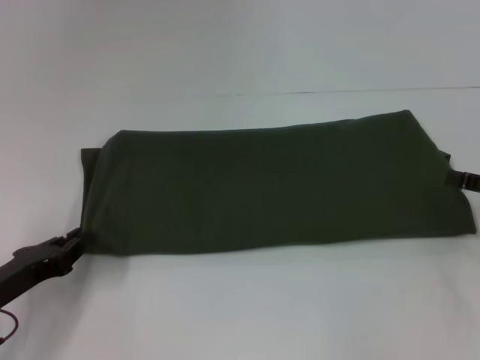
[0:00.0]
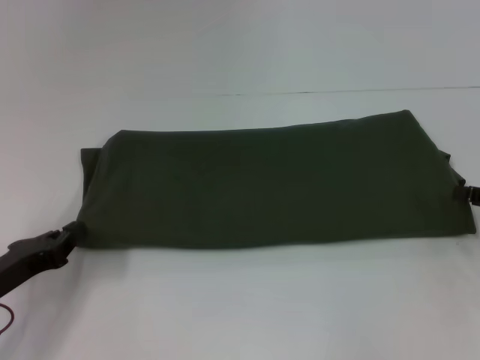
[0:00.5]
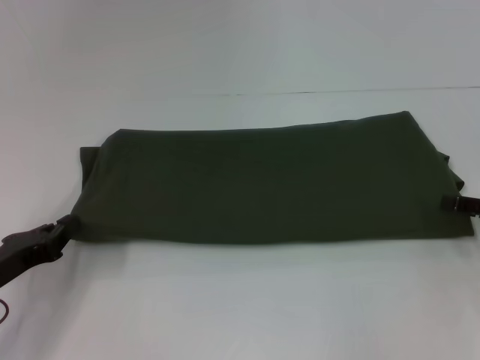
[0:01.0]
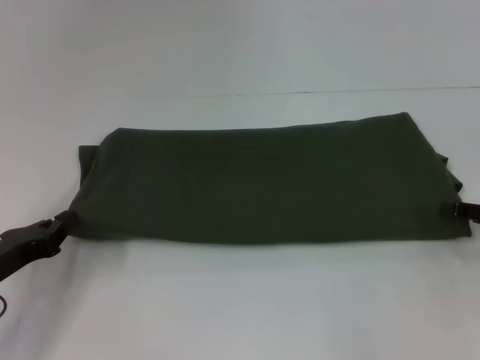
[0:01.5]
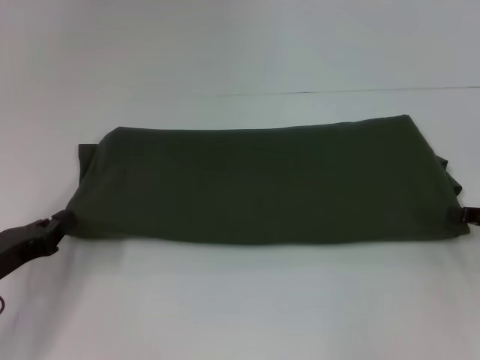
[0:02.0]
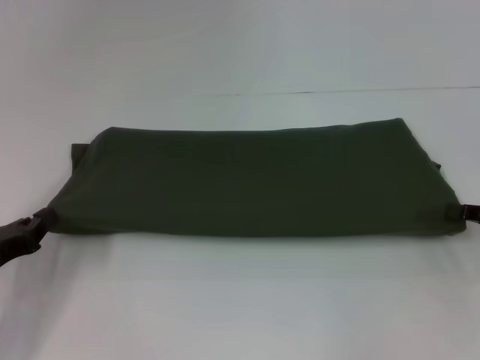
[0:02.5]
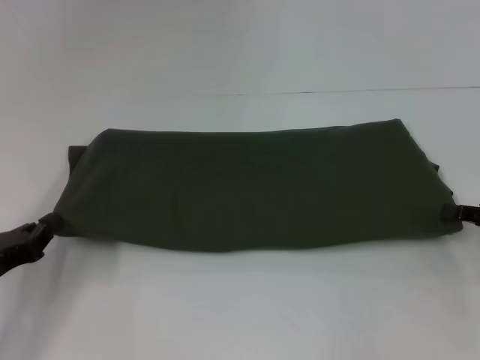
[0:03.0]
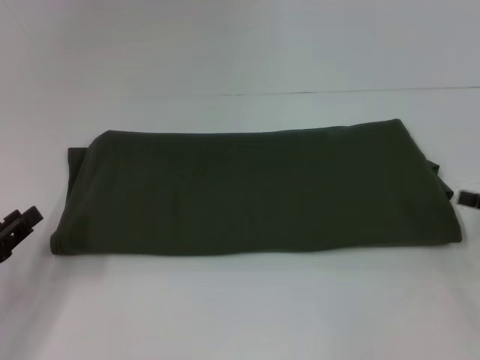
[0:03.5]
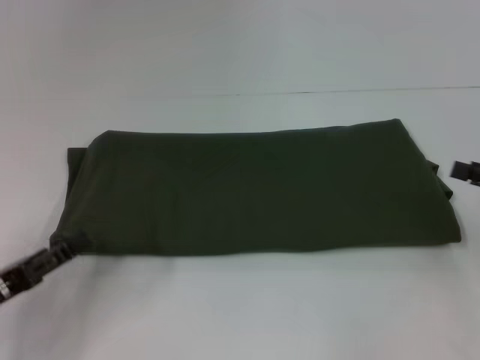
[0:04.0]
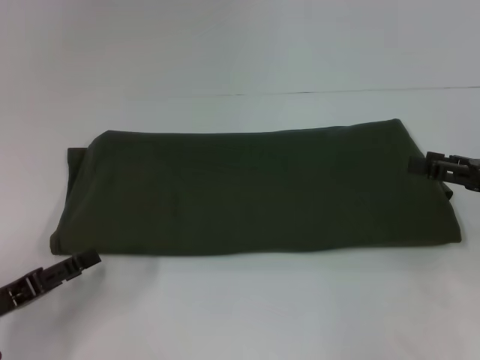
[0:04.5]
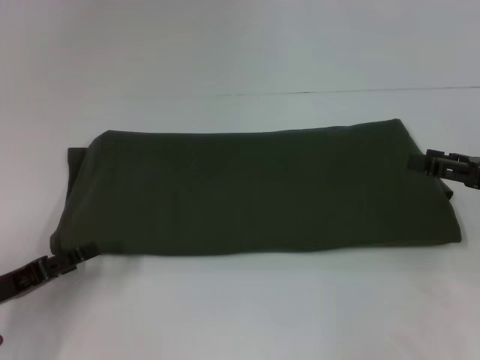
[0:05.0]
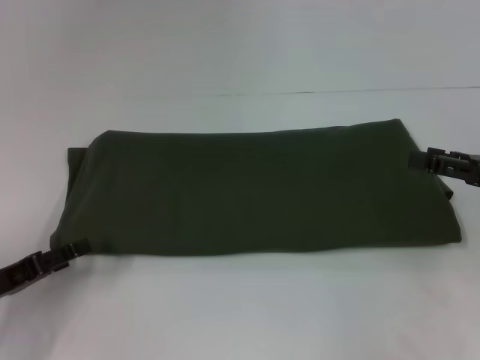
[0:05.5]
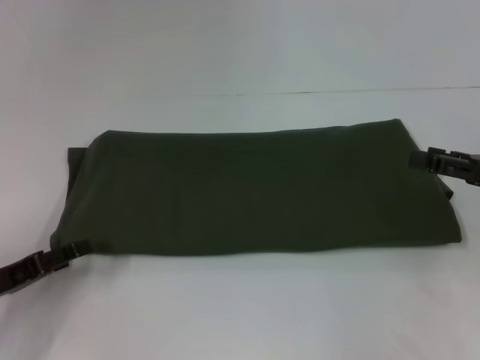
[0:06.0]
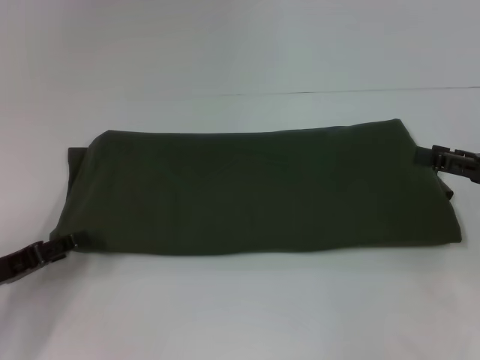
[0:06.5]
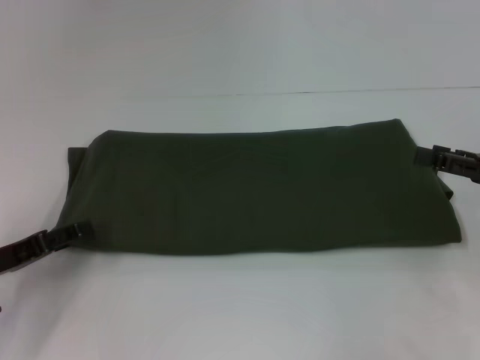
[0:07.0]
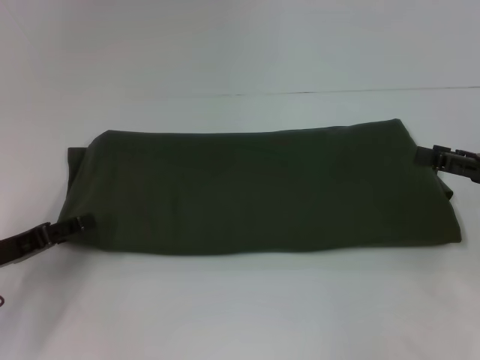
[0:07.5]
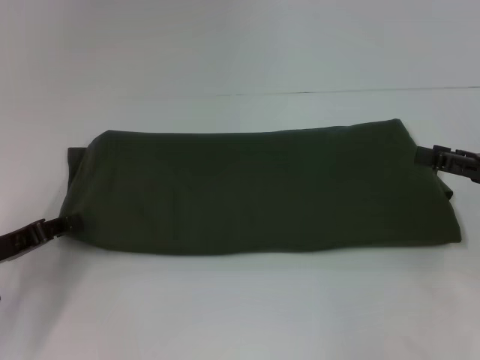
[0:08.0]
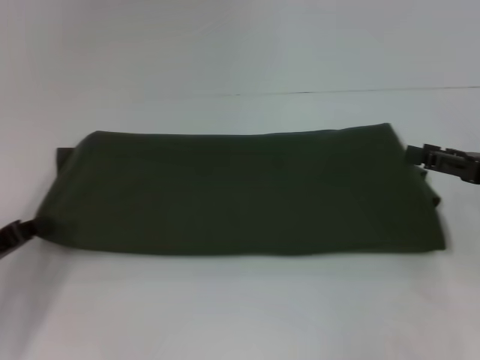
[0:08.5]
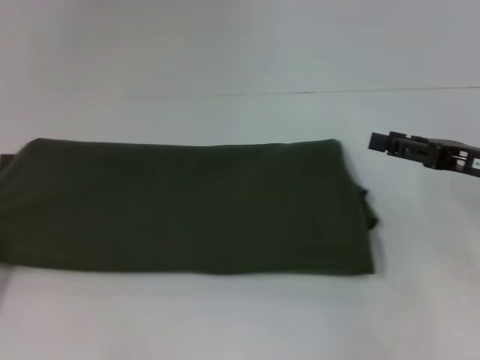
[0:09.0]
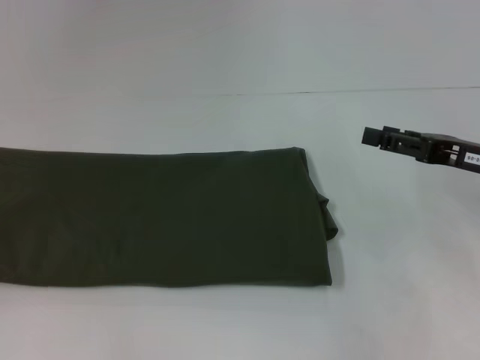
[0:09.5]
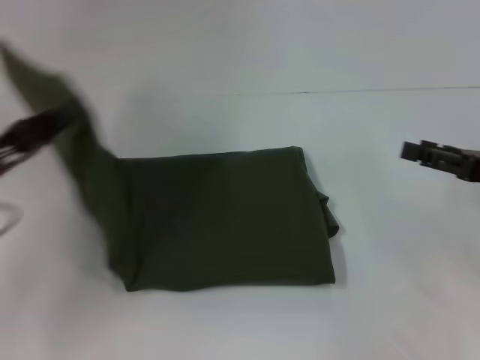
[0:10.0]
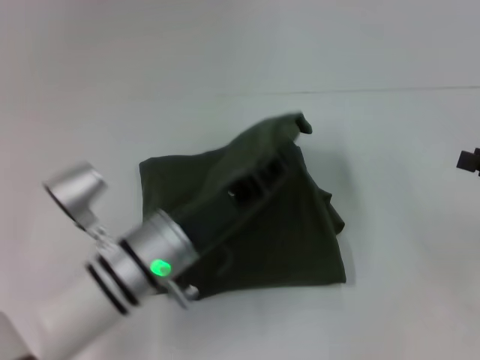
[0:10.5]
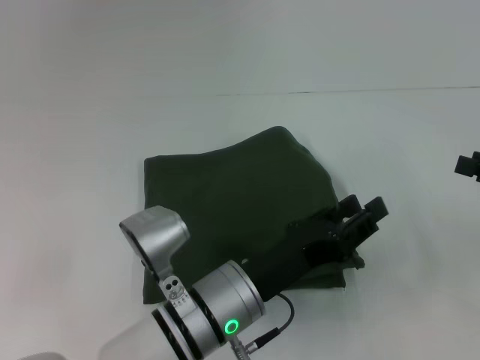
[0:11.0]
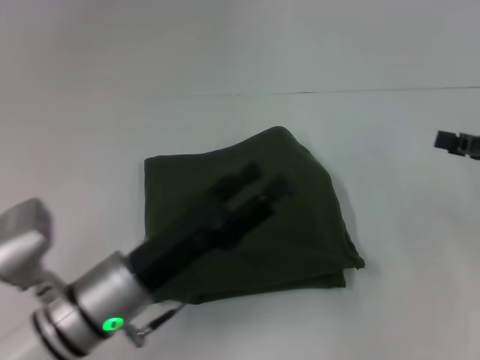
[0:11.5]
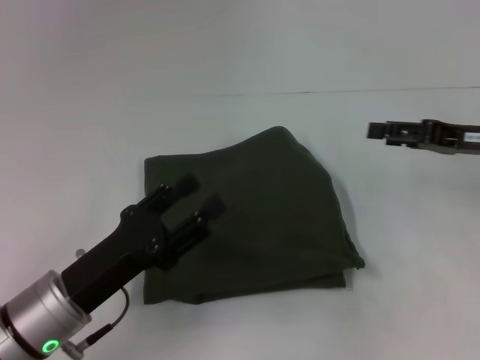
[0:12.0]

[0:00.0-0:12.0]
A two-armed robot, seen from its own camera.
Step, 0:00.0 to 0:03.0: Pull the clothes with your left hand.
Step, 0:00.0 to 0:03.0: Pull the clothes with your right hand.
Step, 0:03.5 to 0:10.5: Fold the clothes with your left hand.
0:00.0 to 0:02.0: The right gripper closes.
0:02.0 to 0:04.0: The left gripper moves backward, approximately 5 cm, and opens its fingers. The right gripper opens its fingers.
0:04.0 to 0:06.0: The grippers stay close to where they were, moving slightly.
0:06.0 to 0:08.0: The grippers move only a little.
0:08.0 to 0:10.0: The left gripper moves upward, about 5 cm, goes to the left and returns, approximately 10 cm each way, and closes its fingers.
0:10.0 to 0:12.0: The right gripper goes some 5 cm forward; the left gripper shifts roughly 15 cm to the right, downward and backward, and opens up.

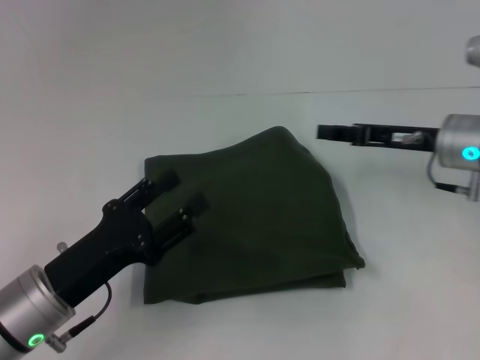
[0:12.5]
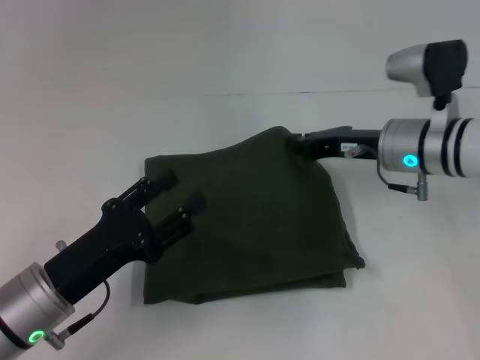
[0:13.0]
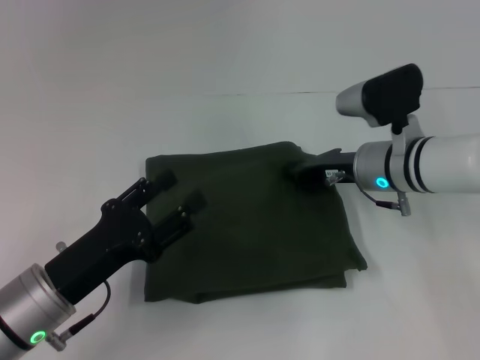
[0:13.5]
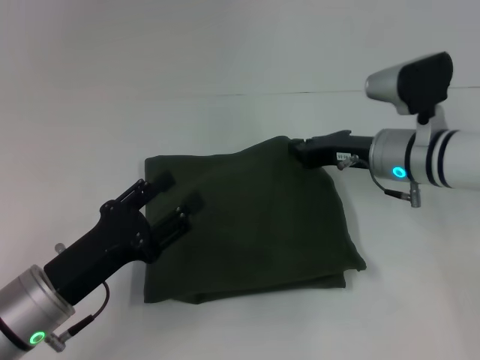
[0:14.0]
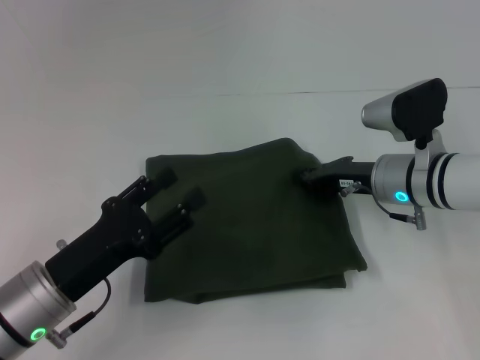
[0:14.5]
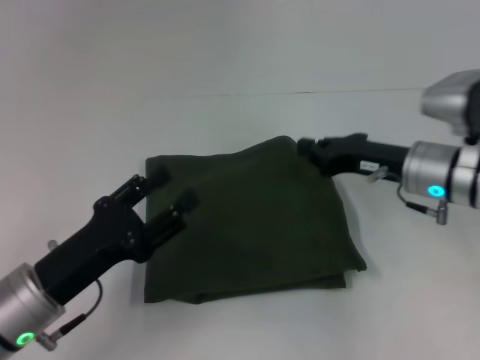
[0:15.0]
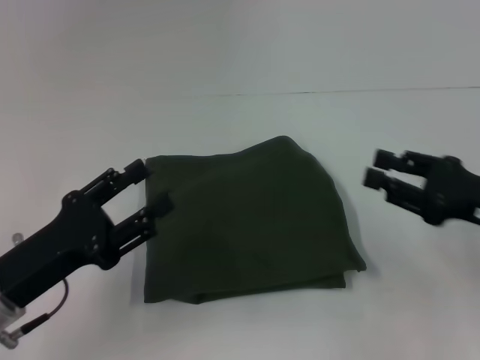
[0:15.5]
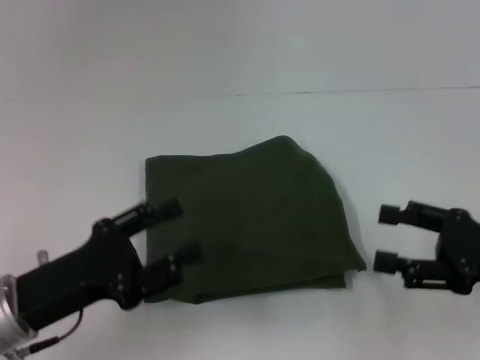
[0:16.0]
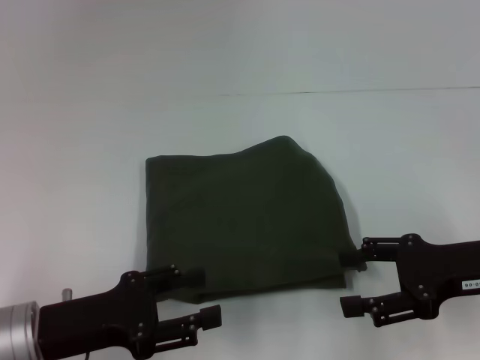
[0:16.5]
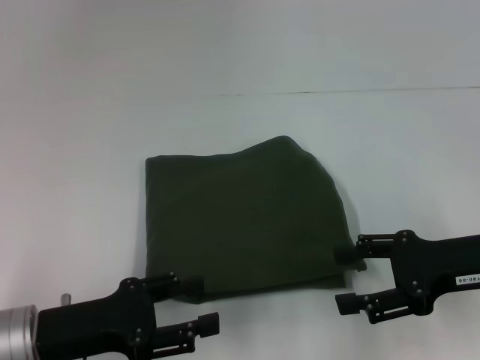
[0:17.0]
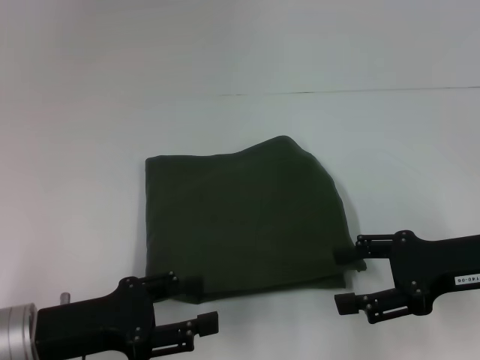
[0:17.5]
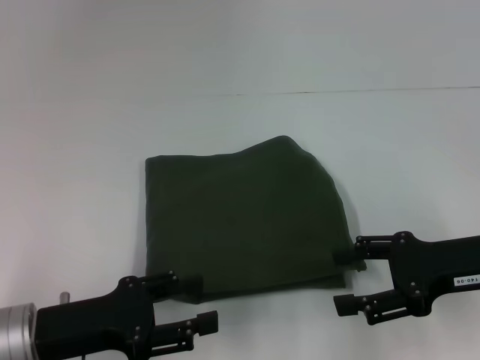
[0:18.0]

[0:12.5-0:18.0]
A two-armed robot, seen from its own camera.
0:12.5 to 0:14.5: The right gripper moves to the left, about 5 cm, and closes up.
0:14.5 to 0:16.0: The right gripper goes roughly 20 cm backward and to the right, and opens its fingers.

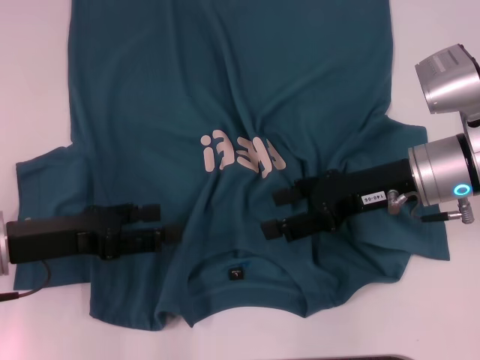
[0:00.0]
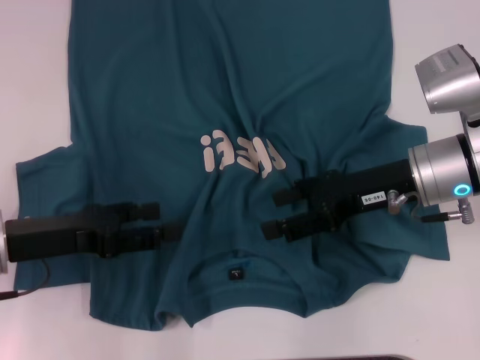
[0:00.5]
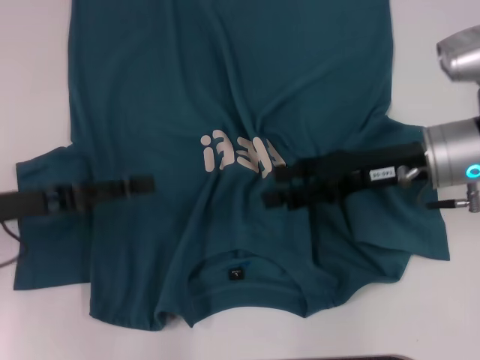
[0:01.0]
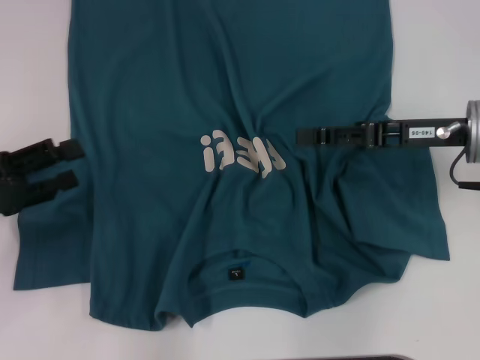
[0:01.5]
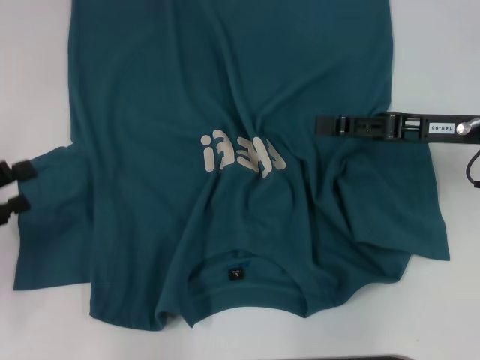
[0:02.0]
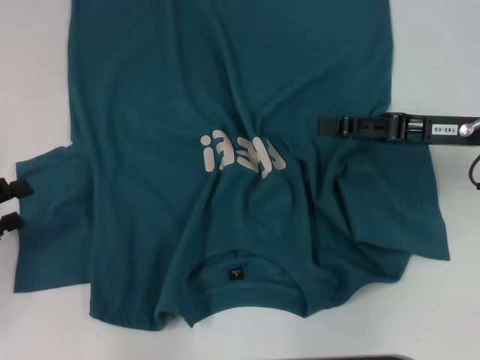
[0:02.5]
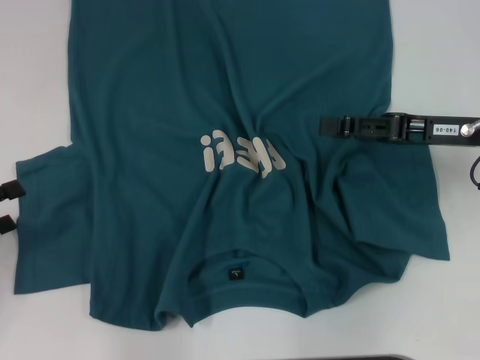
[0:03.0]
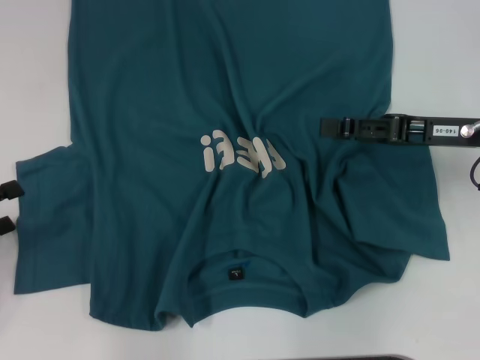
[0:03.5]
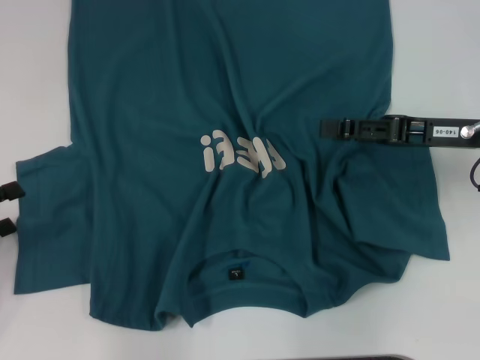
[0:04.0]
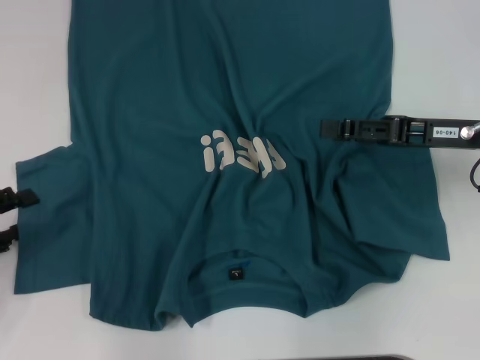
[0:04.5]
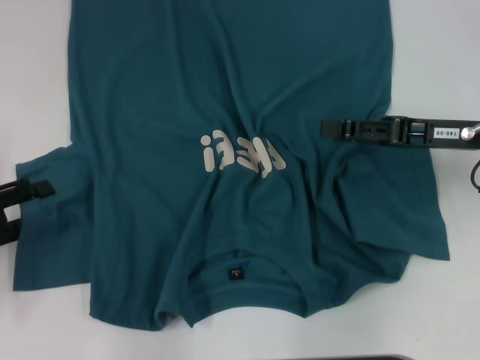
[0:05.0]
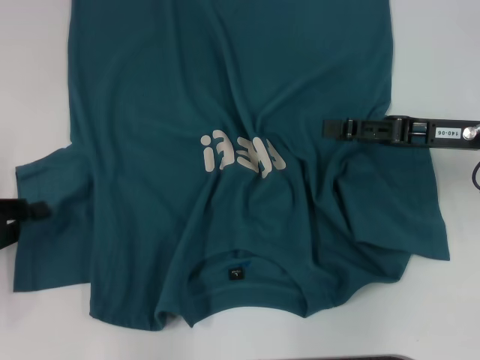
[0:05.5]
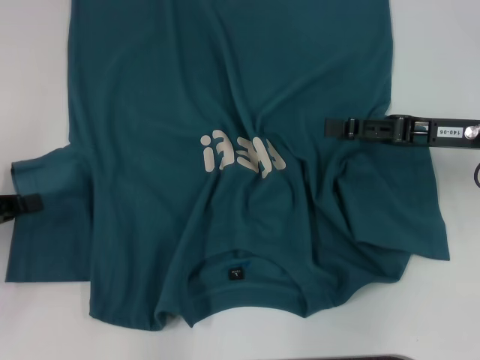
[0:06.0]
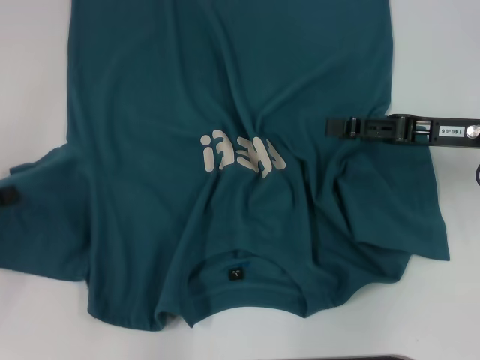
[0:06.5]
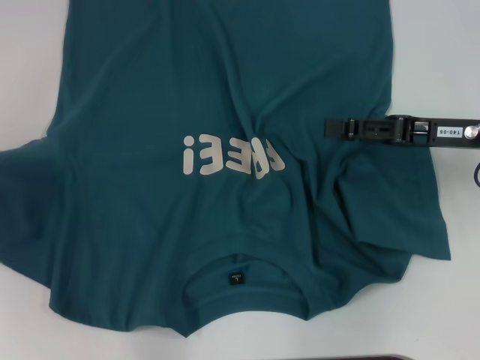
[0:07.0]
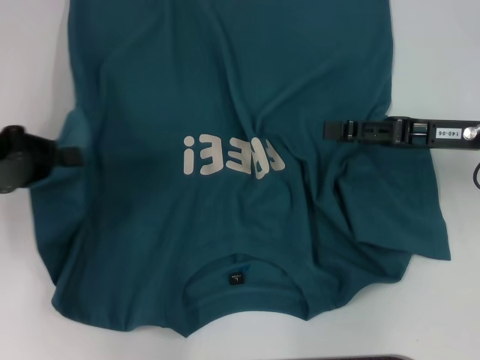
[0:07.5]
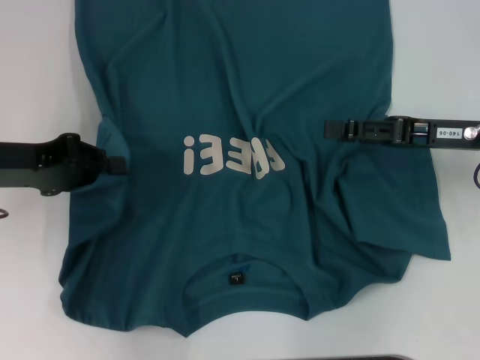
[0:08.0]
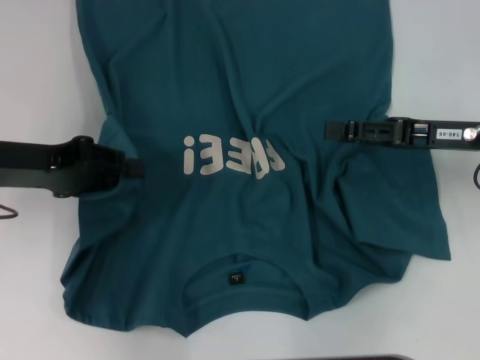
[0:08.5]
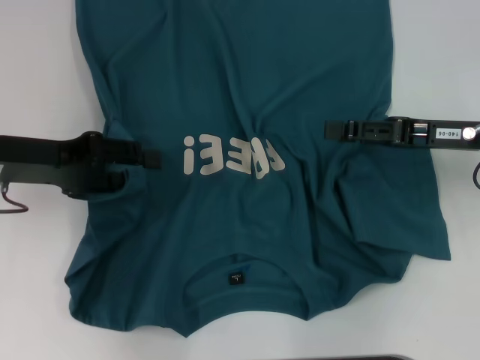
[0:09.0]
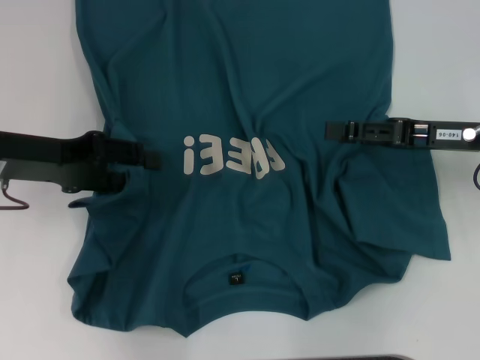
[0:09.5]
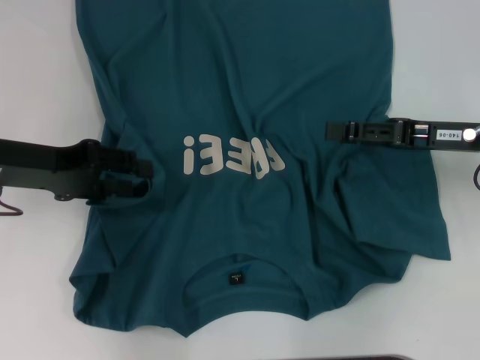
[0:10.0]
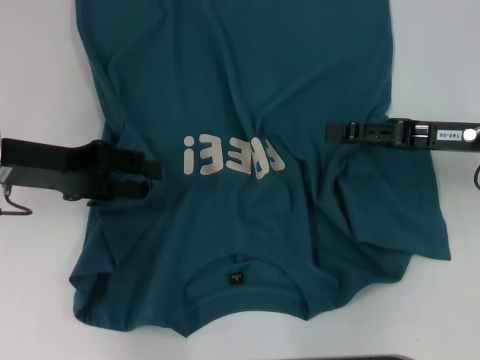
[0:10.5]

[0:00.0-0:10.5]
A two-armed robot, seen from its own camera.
0:00.0 to 0:02.0: The right gripper travels to the right by approximately 5 cm, while the left gripper moves to the left, some 10 cm.
0:02.0 to 0:04.0: There are only small adjustments of the grippers.
0:04.0 to 0:06.5: The left gripper closes up.
0:06.5 to 0:08.5: The left gripper shifts approximately 10 cm to the right and forward.
0:08.5 to 0:10.5: The left gripper opens.
